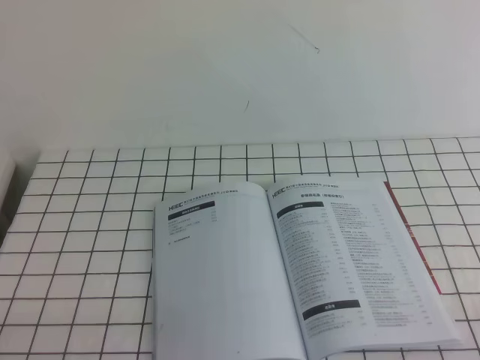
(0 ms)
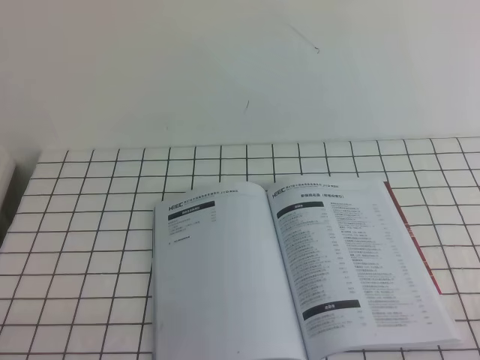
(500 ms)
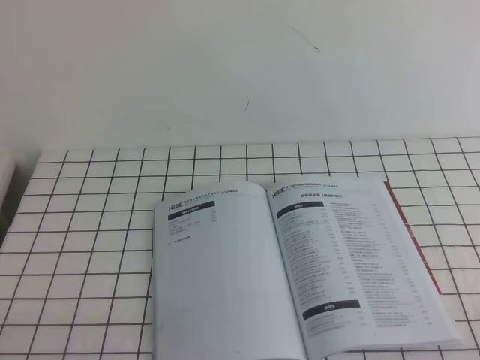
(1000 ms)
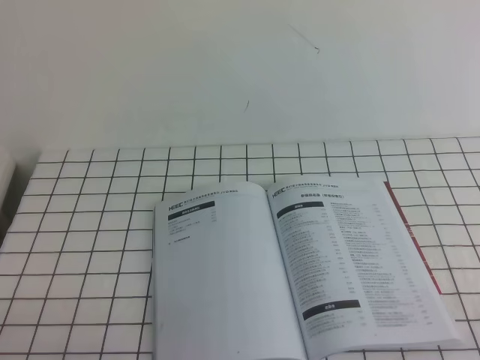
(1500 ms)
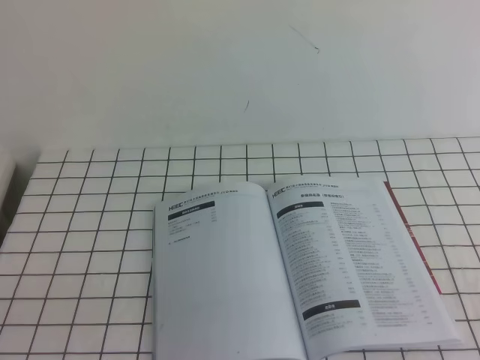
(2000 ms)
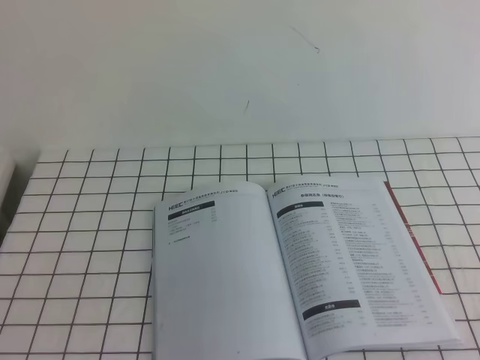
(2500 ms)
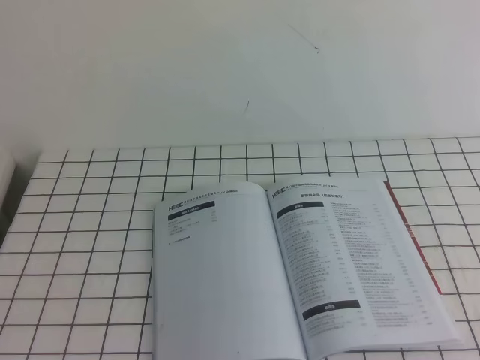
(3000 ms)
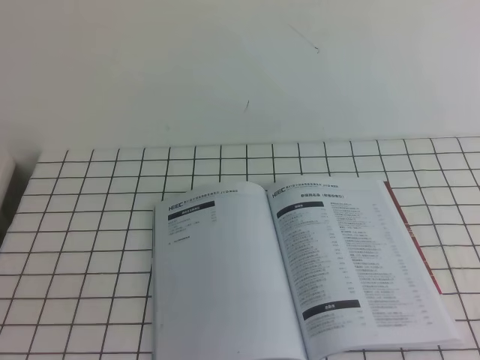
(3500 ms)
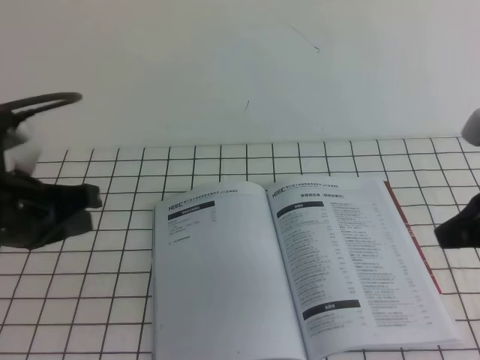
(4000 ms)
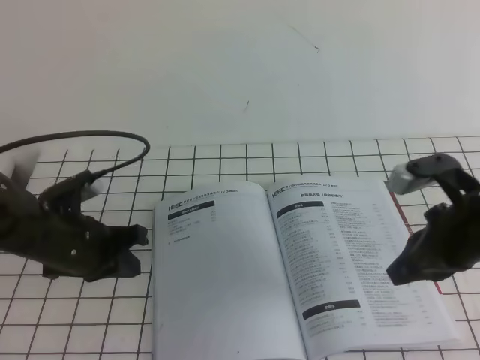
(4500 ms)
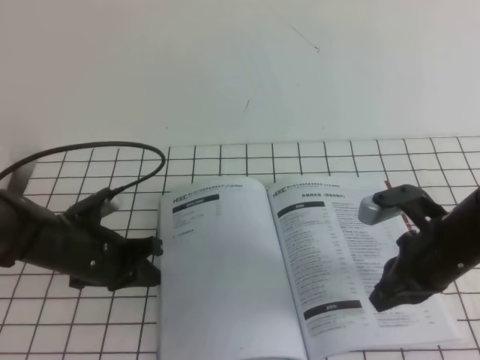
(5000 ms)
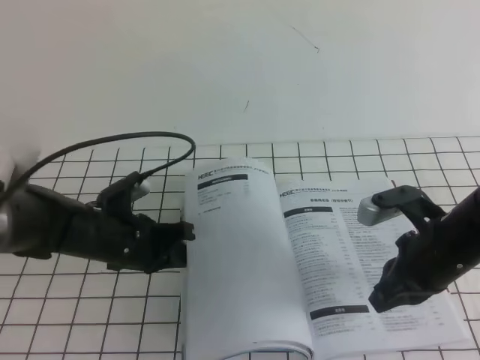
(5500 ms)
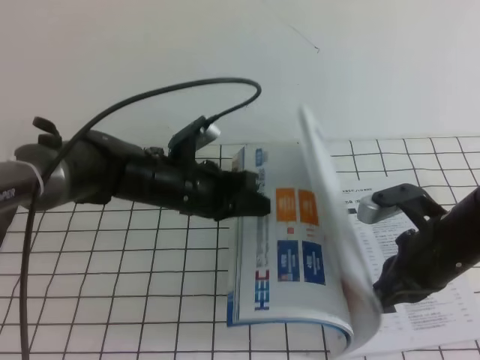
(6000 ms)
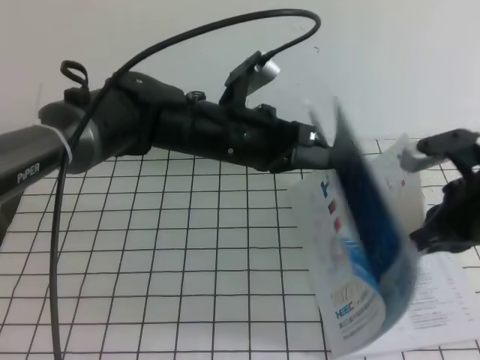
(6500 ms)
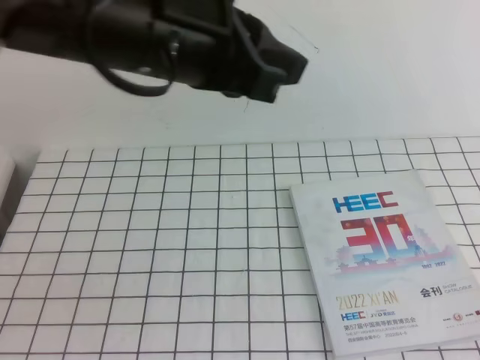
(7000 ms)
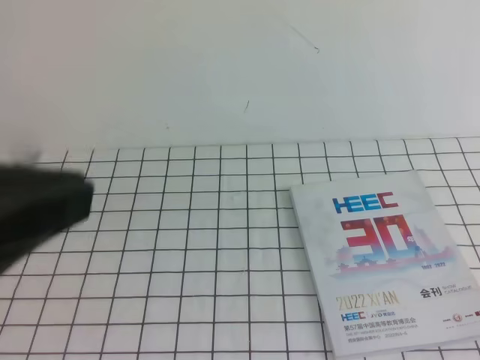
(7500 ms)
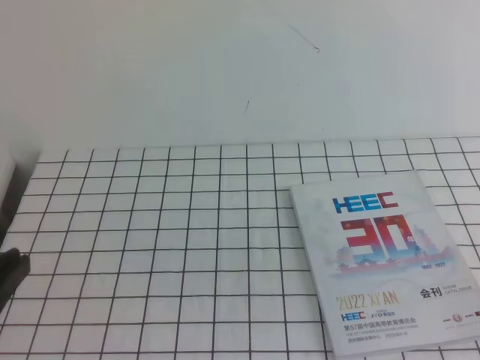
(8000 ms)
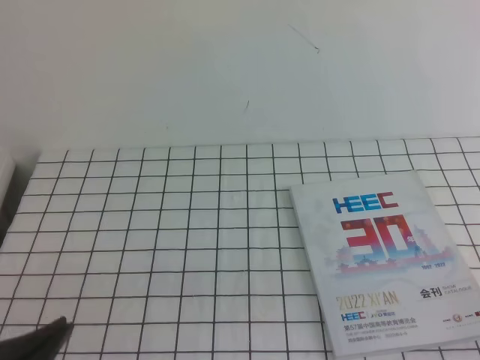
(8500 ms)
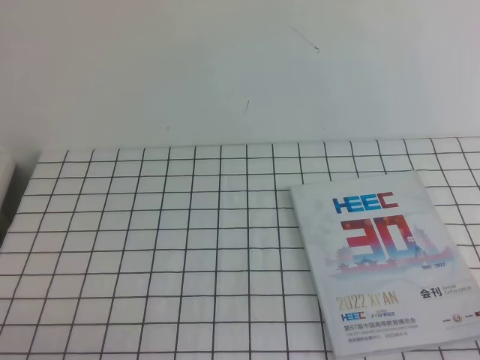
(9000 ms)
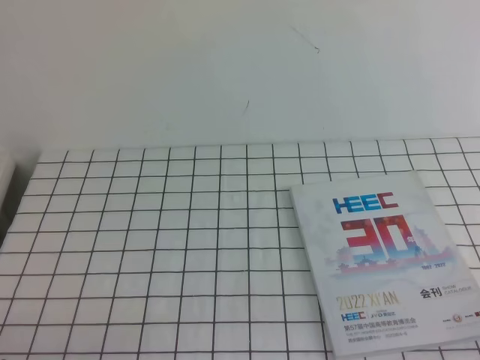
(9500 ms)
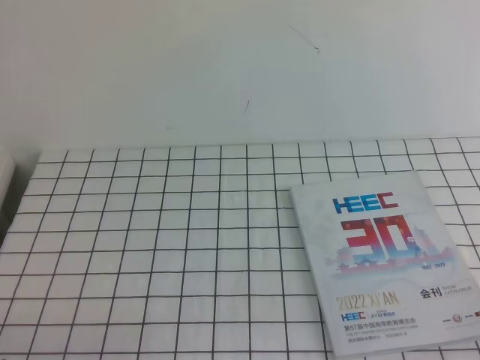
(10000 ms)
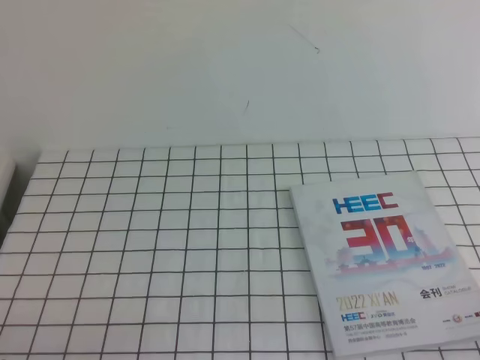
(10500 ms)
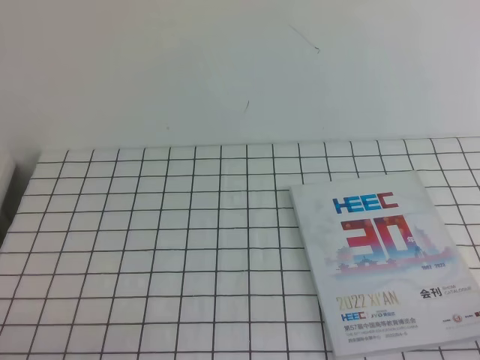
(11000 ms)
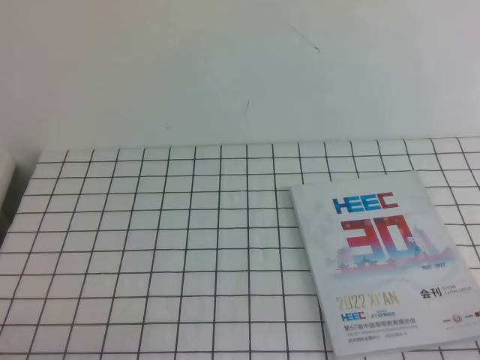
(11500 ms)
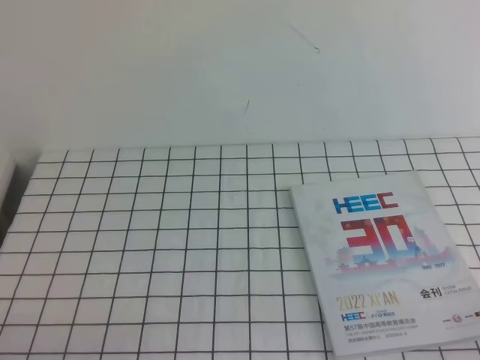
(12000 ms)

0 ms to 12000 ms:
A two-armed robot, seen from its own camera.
Task of the whole recording: on the white tablecloth, hold the book with one hand and close it with the other.
Step, 0 ms to 12000 ms: Close the open book.
2000 ms to 4000 ms: Both grippers travel together forward and upward, approximately 20 cm.
4000 ms to 6000 ms: The left gripper heads downward, forward and to the right, covering about 25 cm. The right gripper travels downward and to the left by some 15 cm.
6000 ms to 8000 ms: The right gripper heads backward, upward and to the right, covering roughly 30 cm; the left gripper travels backward, upward and to the left by about 35 cm.
8000 ms to 10000 ms: The left gripper moves downward, approximately 20 cm.
